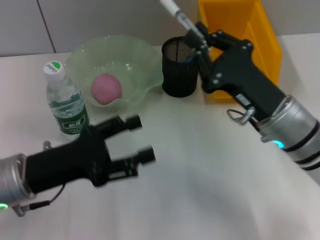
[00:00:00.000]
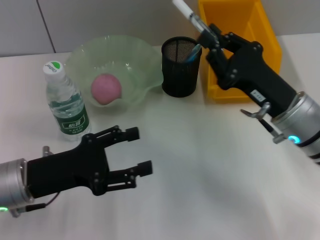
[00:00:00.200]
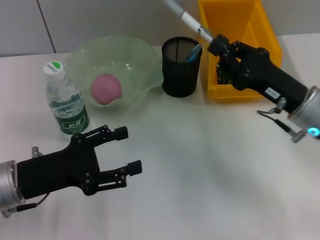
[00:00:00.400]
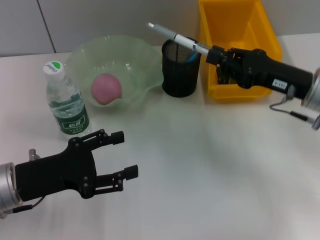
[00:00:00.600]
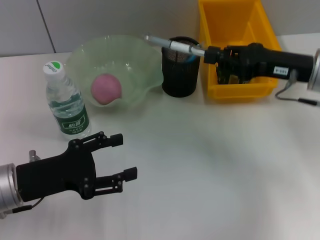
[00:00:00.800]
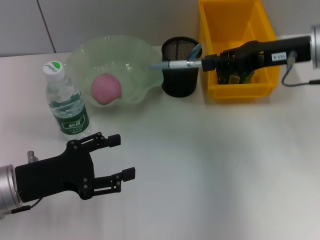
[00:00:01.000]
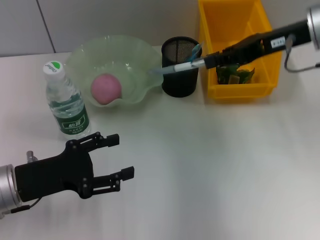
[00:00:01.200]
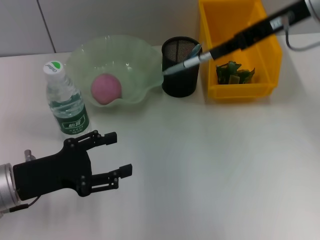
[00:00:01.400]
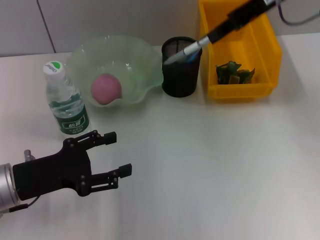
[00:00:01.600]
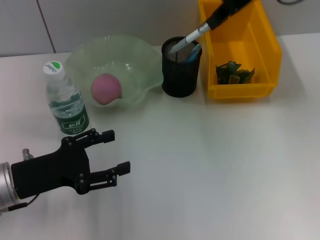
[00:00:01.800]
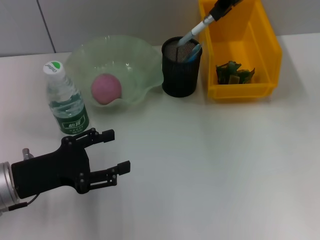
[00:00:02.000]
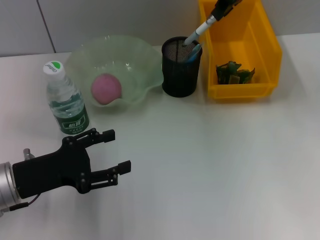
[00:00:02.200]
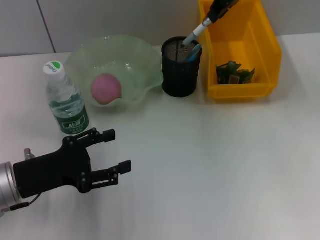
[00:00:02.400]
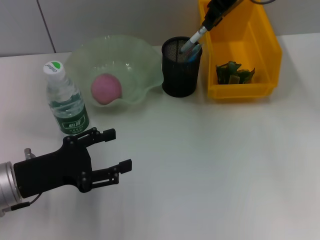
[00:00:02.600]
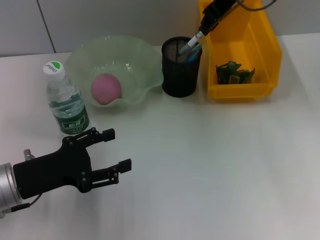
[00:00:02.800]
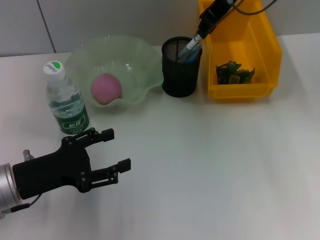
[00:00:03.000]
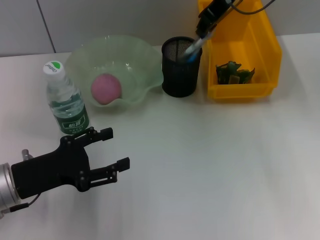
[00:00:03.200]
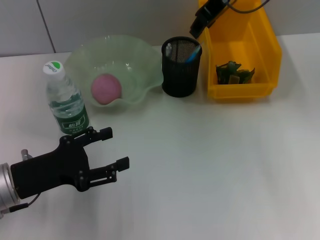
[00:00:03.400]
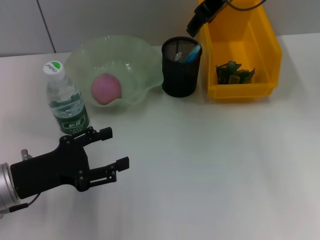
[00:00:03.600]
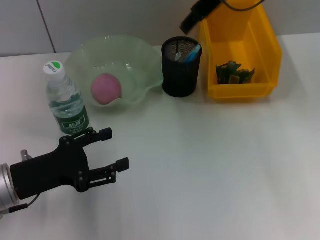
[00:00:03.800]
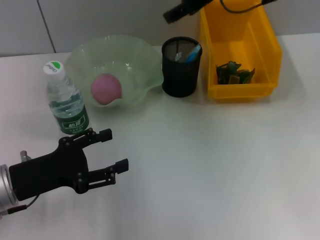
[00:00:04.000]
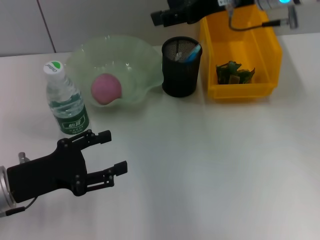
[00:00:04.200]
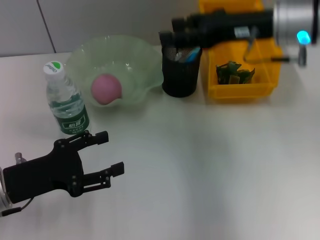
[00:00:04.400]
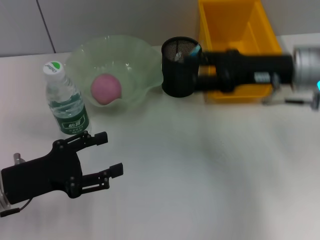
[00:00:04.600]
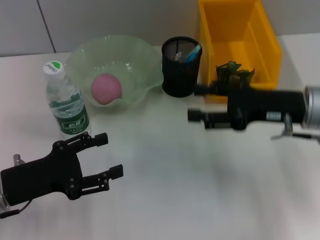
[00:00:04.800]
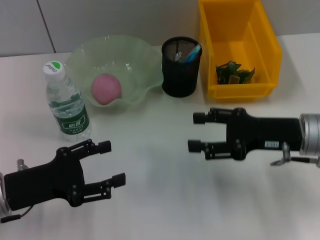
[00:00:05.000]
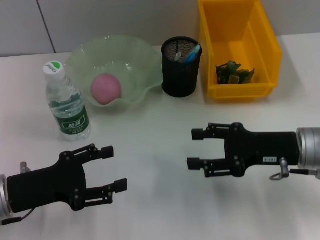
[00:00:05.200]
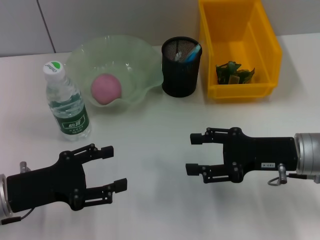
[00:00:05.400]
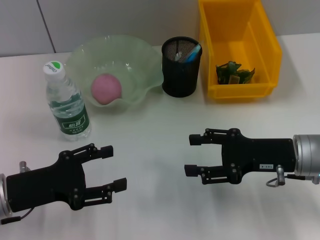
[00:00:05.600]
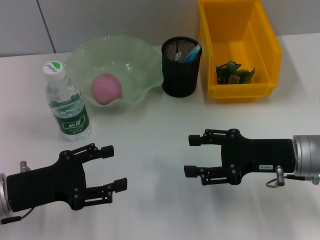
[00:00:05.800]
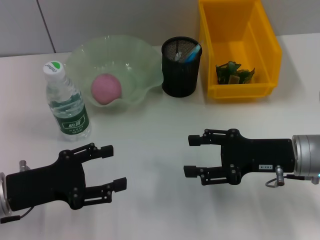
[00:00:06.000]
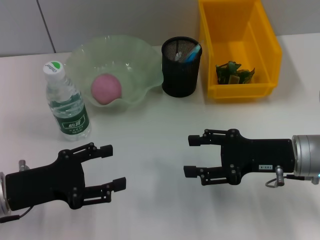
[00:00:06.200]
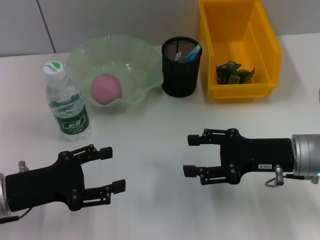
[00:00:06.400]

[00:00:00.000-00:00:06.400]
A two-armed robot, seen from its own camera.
Step, 00:00:00.000 to 00:00:03.600: Place the gray spring-action pen into the pen holder with the right hand.
00:00:00.000 to 00:00:01.600: The right gripper goes about 25 cm upward and forward.
00:00:01.600 to 00:00:03.200: The right gripper is displaced to the left by roughly 5 cm.
00:00:03.200 to 00:00:04.800: The right gripper heads downward, backward and to the right, covering roughly 25 cm, and opens its fingers.
00:00:04.800 to 00:00:06.400: The right gripper changes place by about 5 cm.
